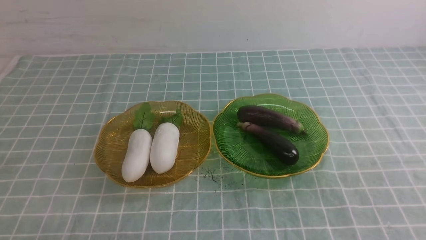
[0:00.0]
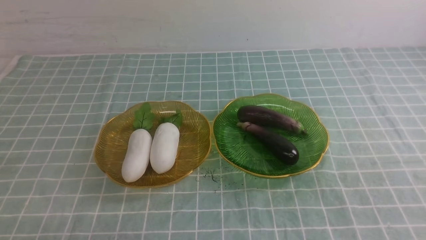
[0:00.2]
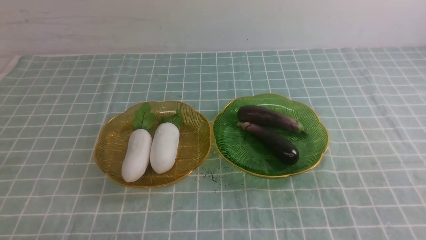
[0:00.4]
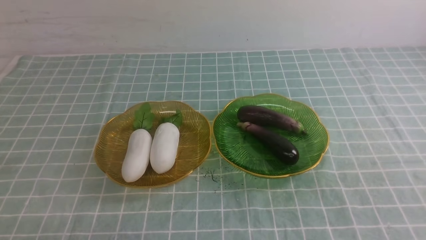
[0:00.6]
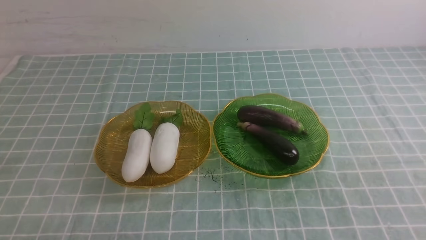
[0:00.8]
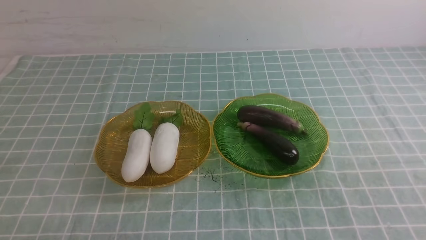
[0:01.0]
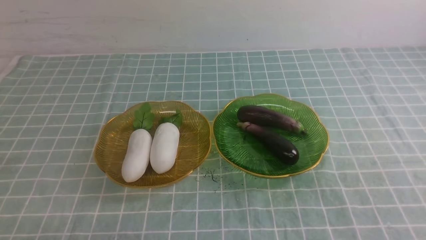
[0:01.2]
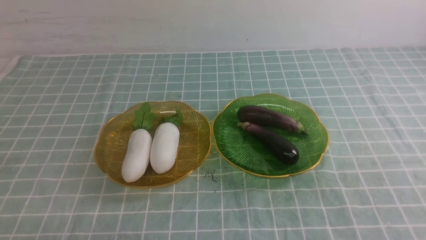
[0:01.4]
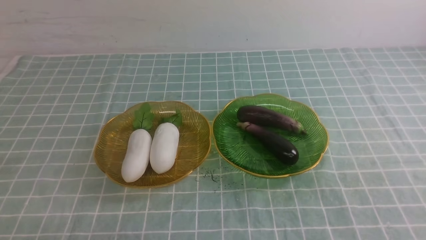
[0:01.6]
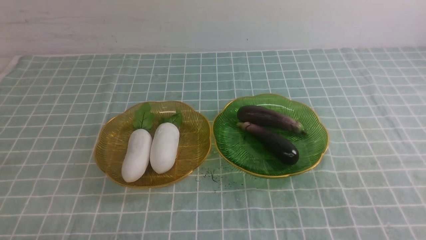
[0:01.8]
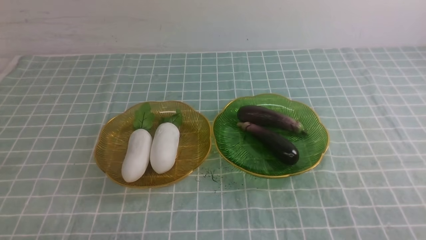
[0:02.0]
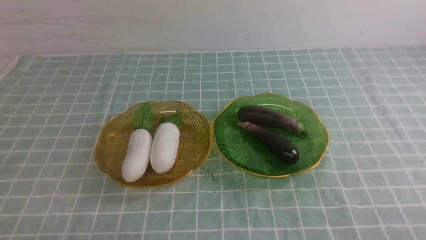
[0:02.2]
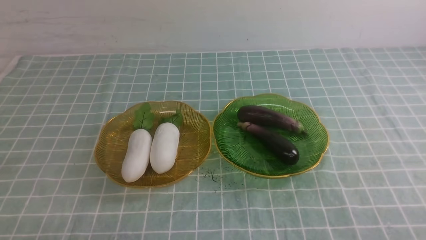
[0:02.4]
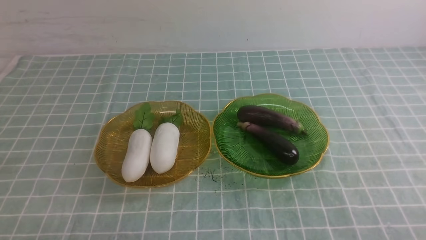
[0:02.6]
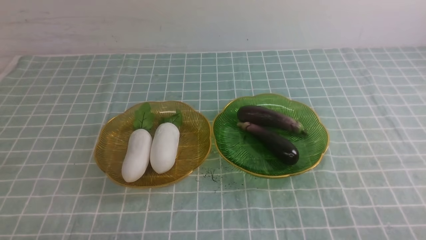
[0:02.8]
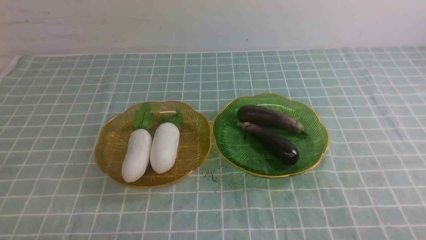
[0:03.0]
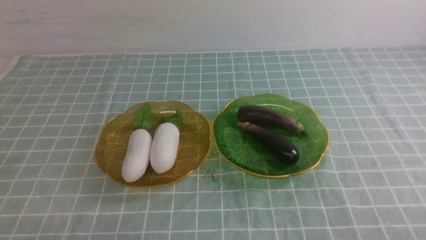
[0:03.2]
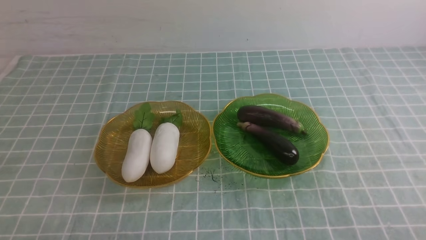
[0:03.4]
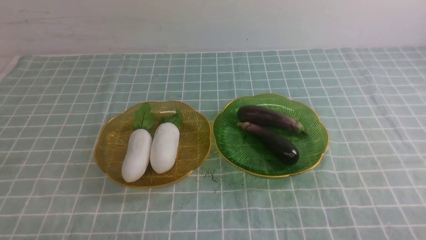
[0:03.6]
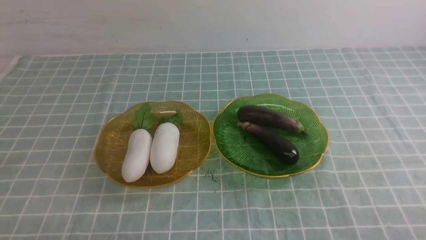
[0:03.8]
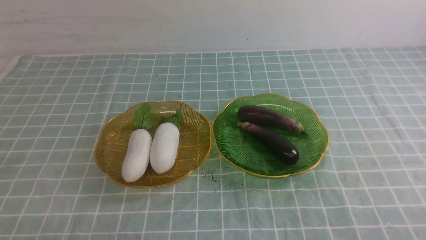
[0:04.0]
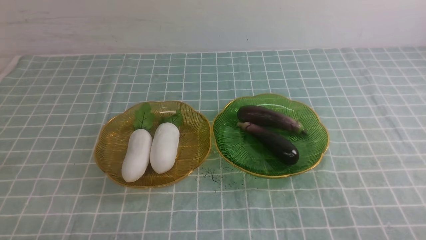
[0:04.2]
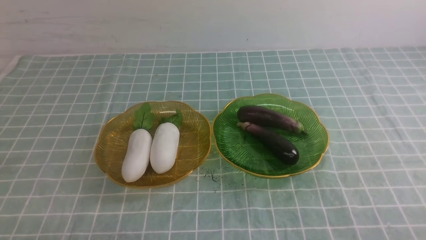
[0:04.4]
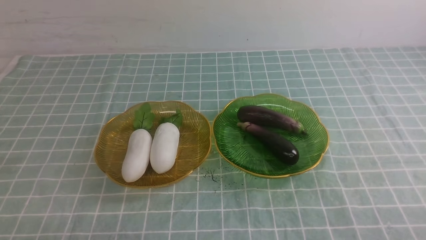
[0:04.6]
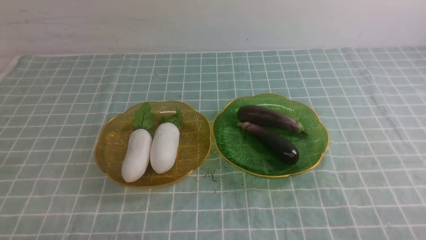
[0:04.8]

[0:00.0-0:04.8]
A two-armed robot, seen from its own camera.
0:03.2 to 0:04.8: Both grippers stay put.

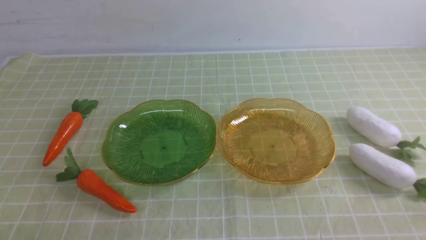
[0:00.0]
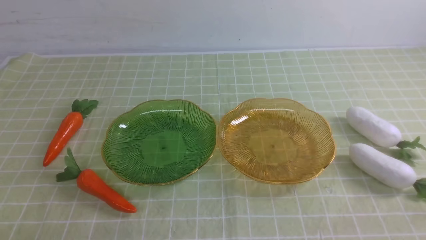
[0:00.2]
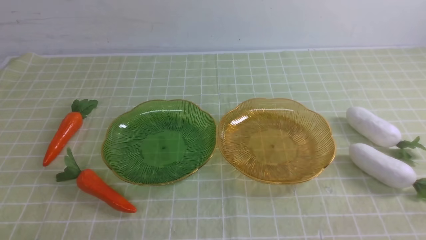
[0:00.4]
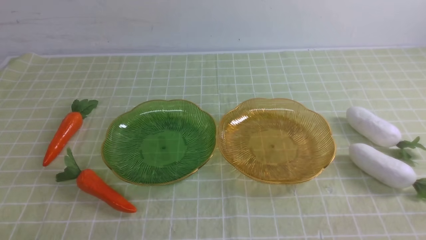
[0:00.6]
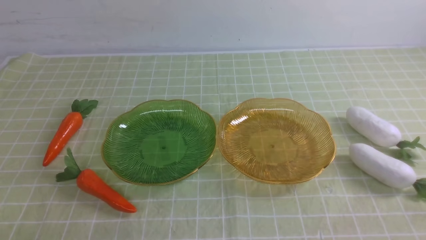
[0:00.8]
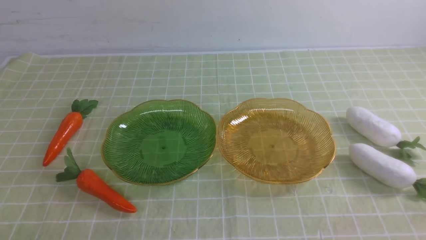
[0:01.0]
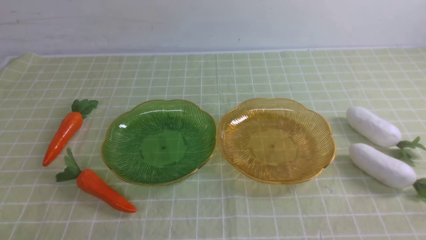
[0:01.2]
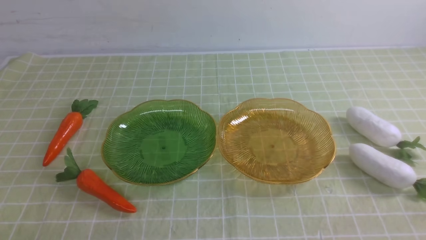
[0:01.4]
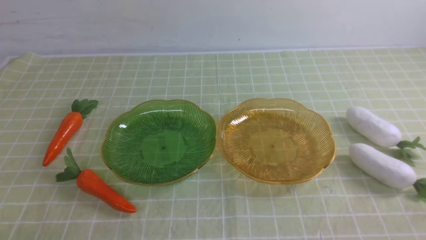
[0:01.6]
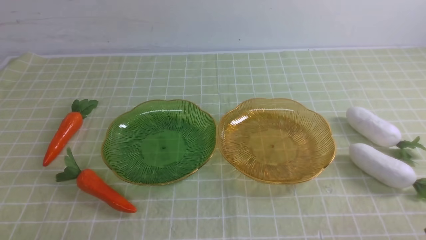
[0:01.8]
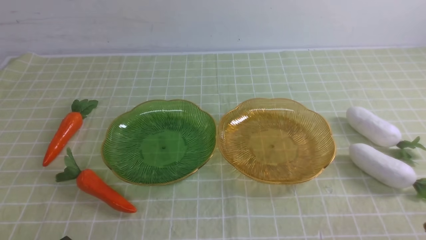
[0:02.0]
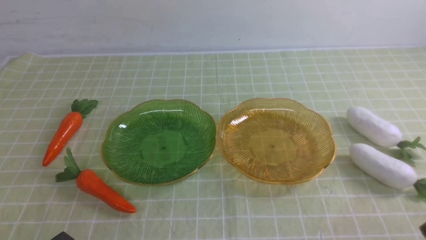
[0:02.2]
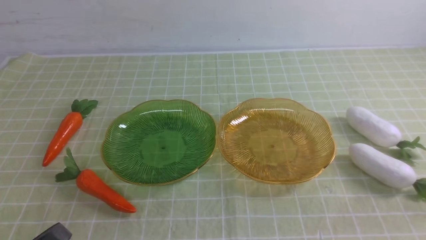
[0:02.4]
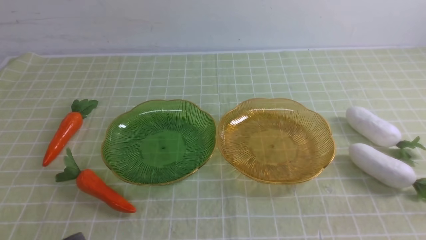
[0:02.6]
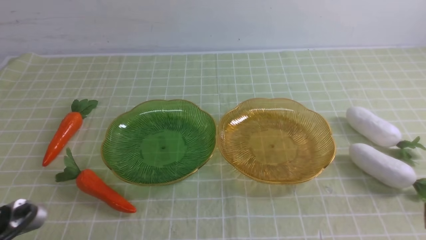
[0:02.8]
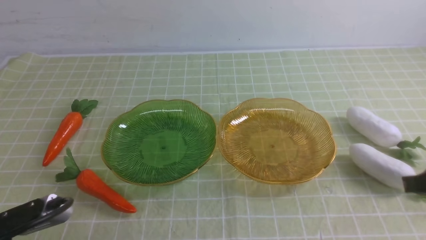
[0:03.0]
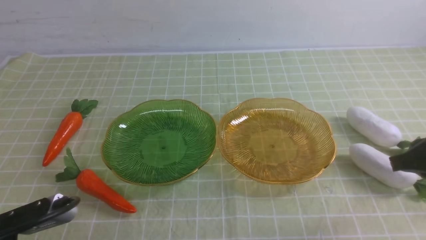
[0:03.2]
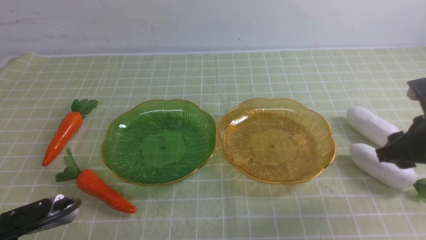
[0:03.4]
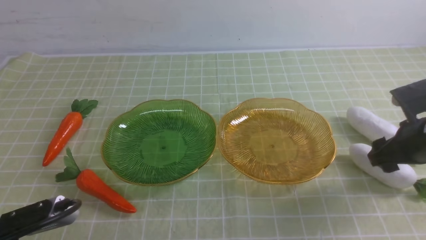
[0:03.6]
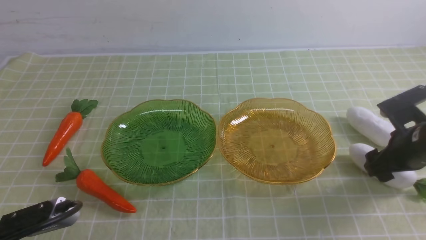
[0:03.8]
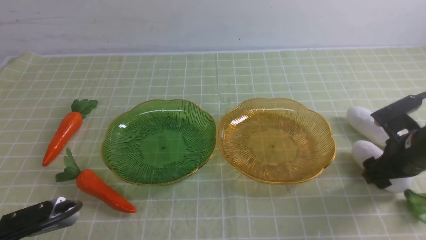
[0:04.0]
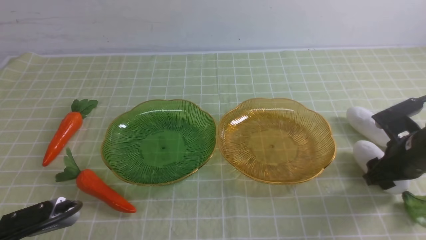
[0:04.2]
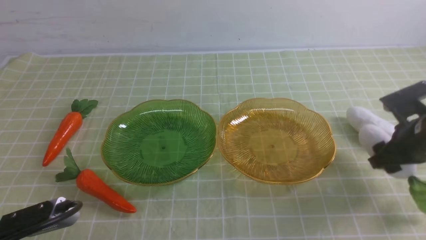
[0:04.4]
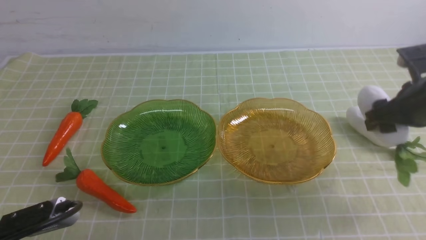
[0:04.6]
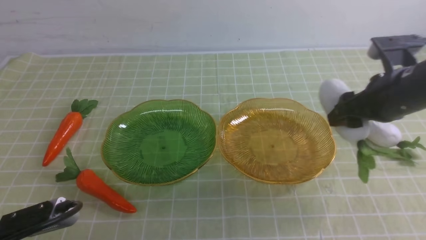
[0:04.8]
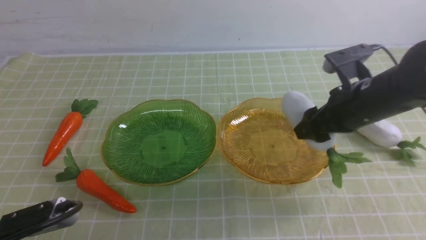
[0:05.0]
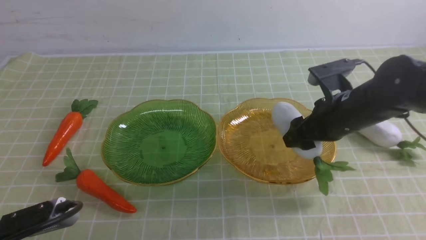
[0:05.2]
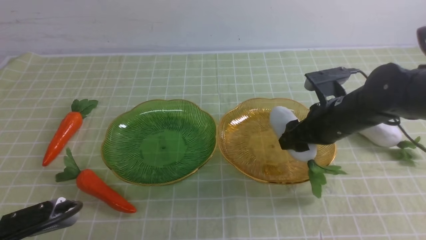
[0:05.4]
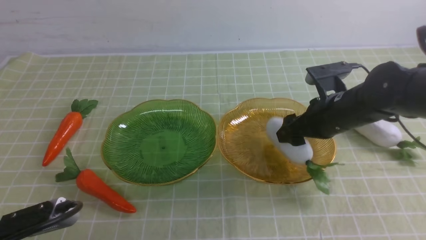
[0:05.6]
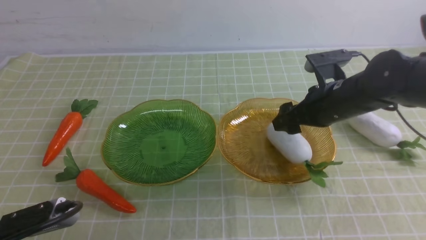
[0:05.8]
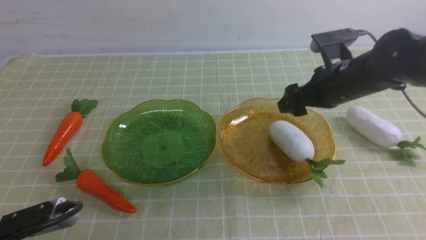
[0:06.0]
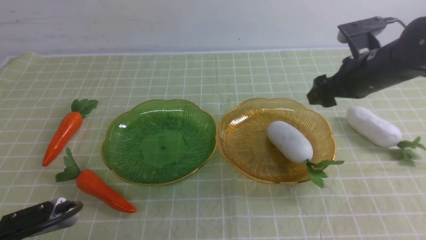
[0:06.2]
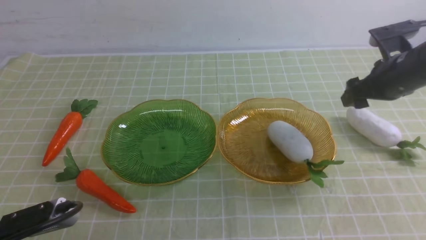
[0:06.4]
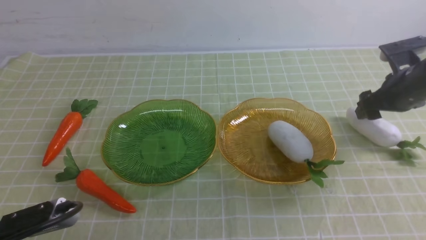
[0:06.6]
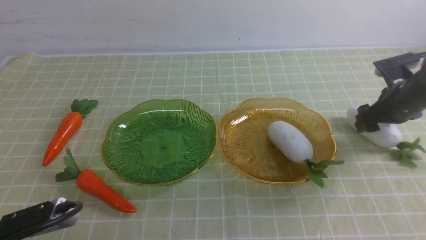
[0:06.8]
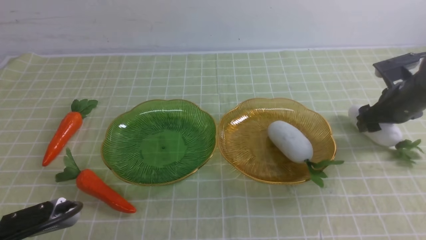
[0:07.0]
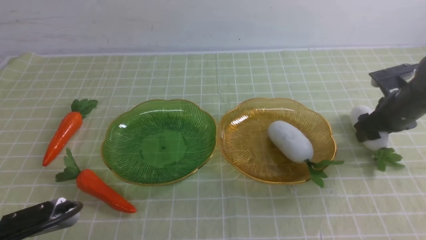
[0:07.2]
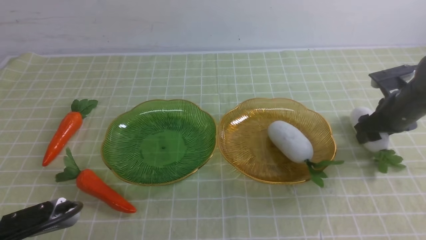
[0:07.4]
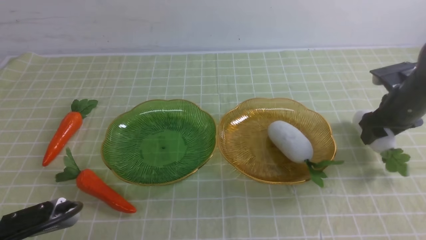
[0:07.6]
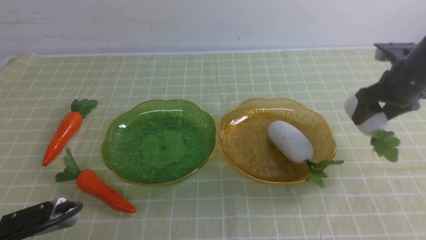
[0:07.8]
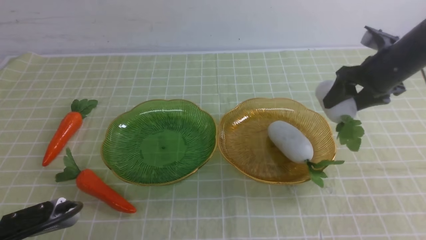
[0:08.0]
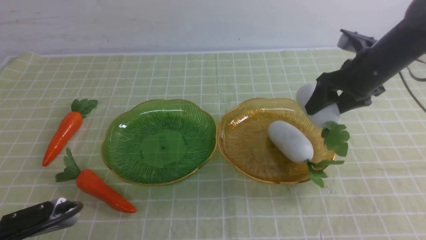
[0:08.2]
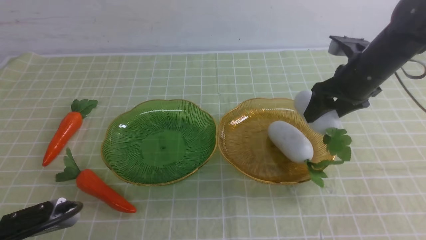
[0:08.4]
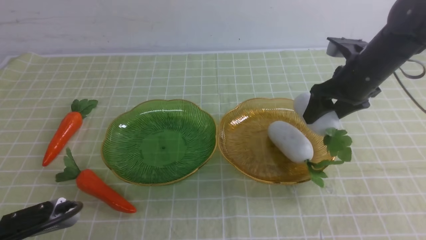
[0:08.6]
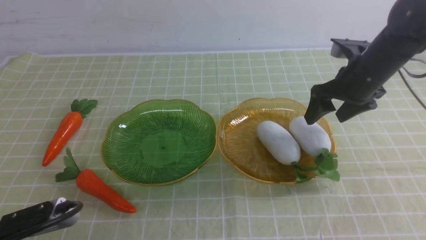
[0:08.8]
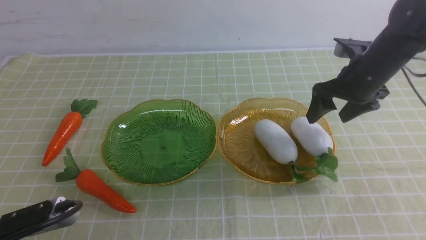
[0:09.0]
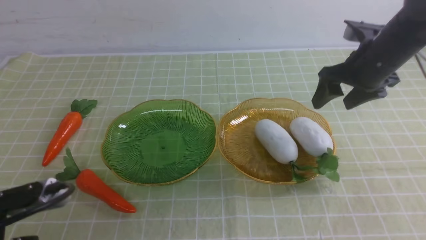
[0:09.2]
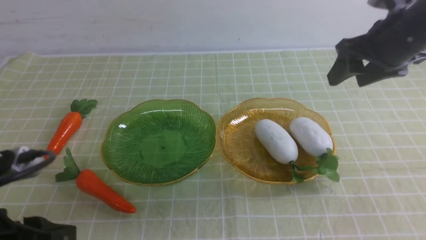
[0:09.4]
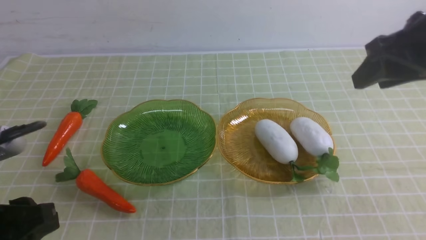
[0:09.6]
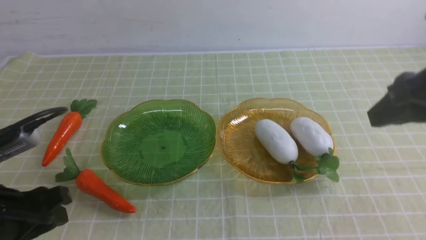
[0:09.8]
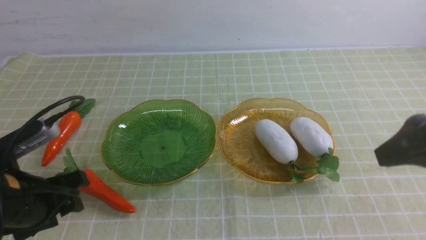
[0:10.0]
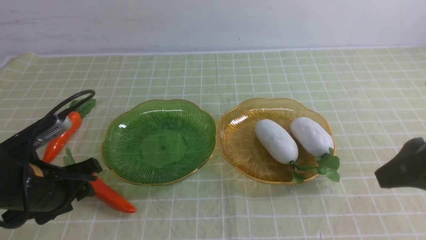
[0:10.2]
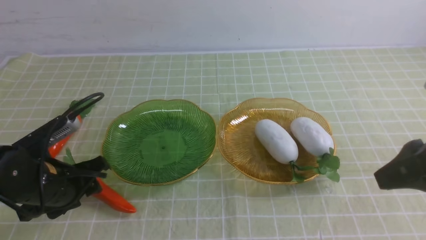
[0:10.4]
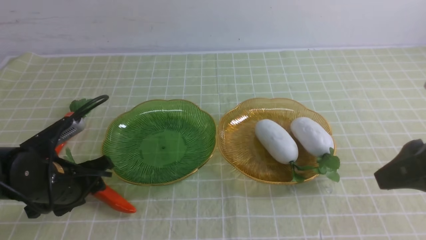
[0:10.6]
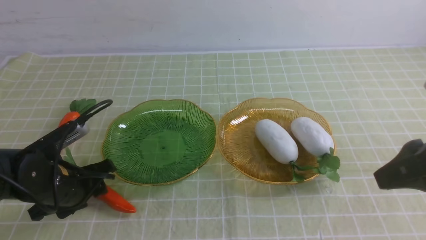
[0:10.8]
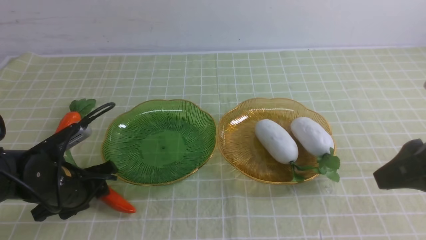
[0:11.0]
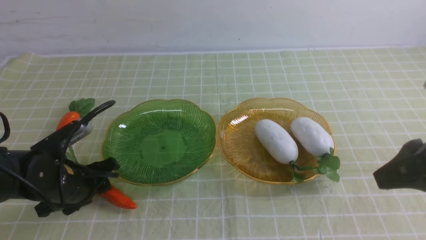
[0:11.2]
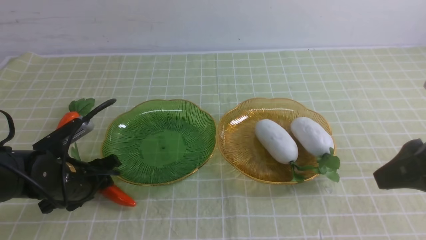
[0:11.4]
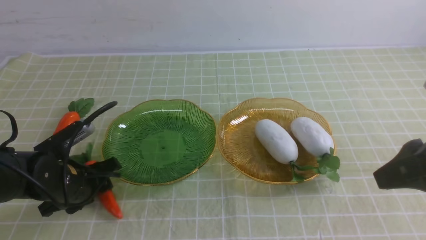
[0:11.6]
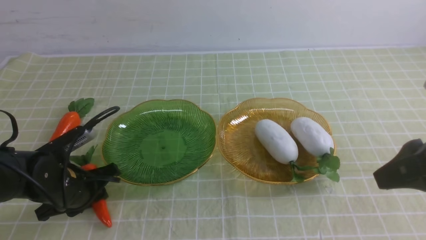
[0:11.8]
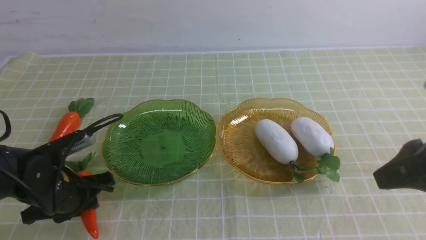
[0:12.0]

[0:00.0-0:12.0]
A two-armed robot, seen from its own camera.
Step, 0:00.0 to 0:09.8: use the right arm to grab a radish and put it into the right plate.
0:01.6 to 0:03.0: The left gripper is displaced upward by approximately 5 cm. Meanwhile the right gripper travels forward and upward by approximately 15 cm.
0:03.0 to 0:04.4: The right gripper travels forward and downward by about 15 cm, and opens up.
0:04.4 to 0:06.0: The right gripper travels to the left and forward by some 10 cm.
0:06.0 to 0:07.6: The right gripper shifts about 15 cm to the right and downward.
0:07.6 to 0:09.0: The right gripper travels to the left and upward by roughly 10 cm.
0:09.0 to 0:10.4: The right gripper heads backward, covering some 20 cm, and closes its fingers. The left gripper moves forward, some 15 cm, and opens its fingers.
0:10.4 to 0:12.0: The grippers move only a little.
